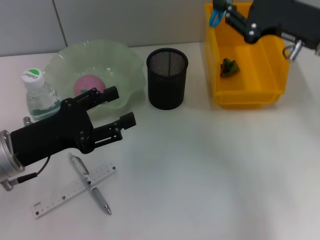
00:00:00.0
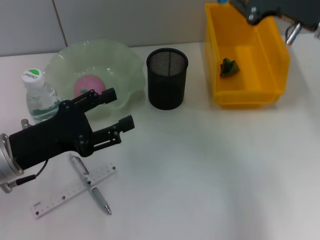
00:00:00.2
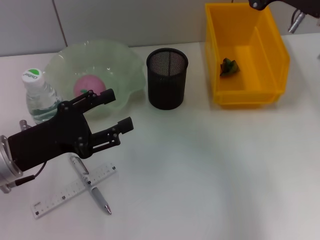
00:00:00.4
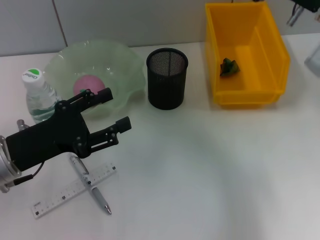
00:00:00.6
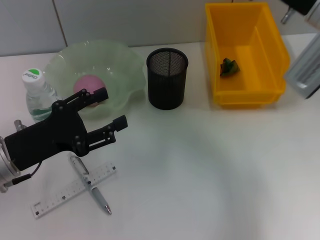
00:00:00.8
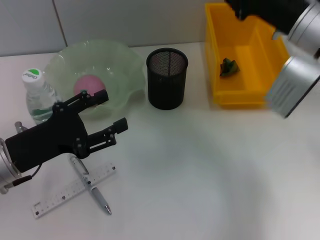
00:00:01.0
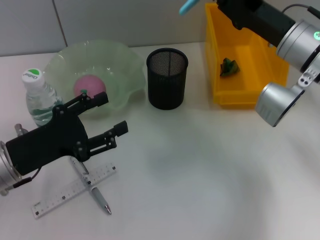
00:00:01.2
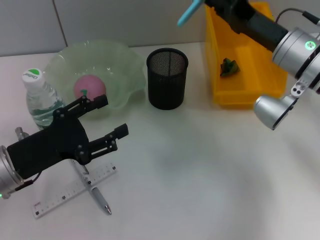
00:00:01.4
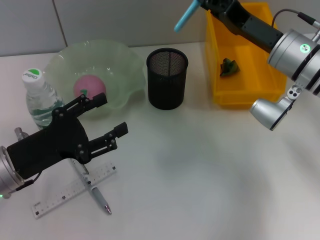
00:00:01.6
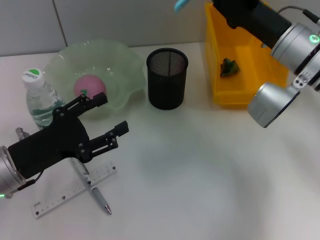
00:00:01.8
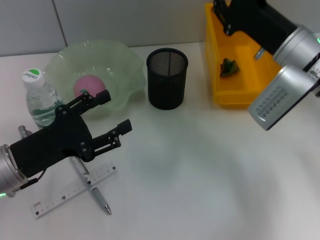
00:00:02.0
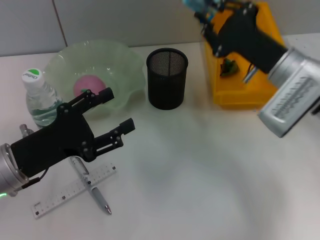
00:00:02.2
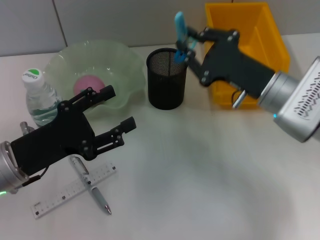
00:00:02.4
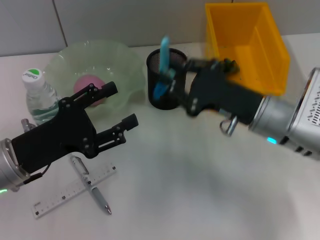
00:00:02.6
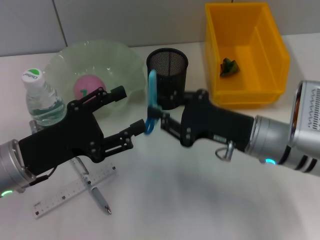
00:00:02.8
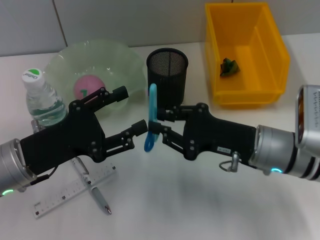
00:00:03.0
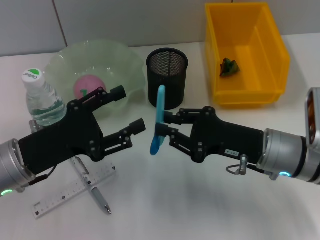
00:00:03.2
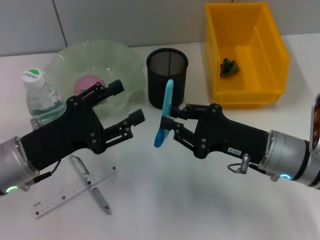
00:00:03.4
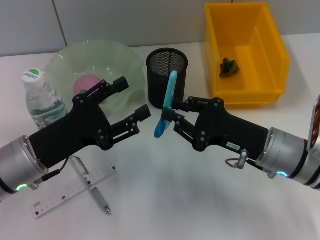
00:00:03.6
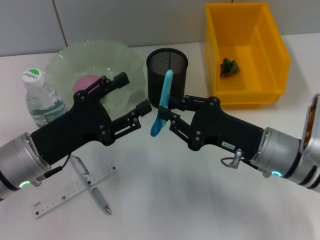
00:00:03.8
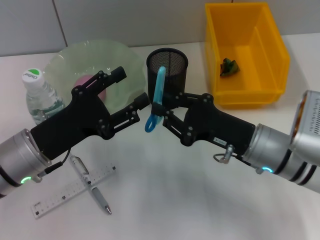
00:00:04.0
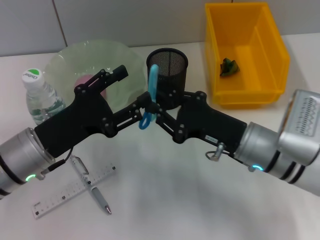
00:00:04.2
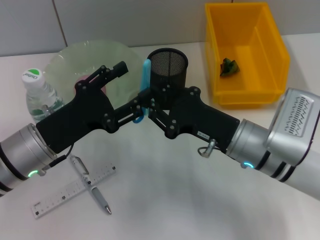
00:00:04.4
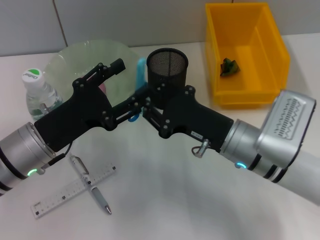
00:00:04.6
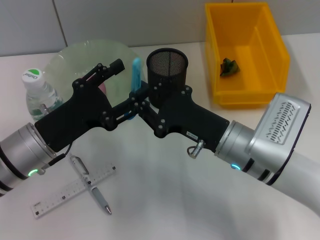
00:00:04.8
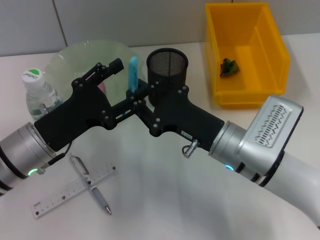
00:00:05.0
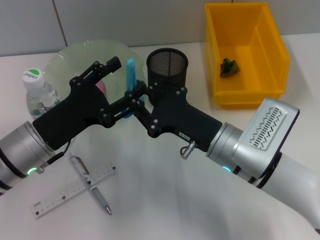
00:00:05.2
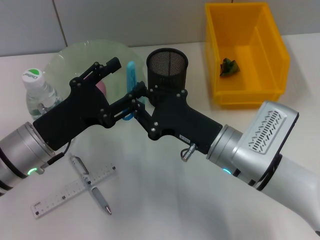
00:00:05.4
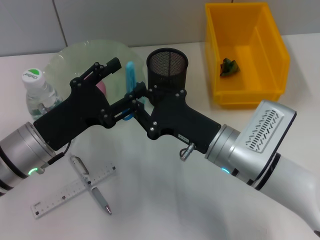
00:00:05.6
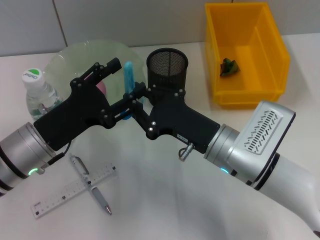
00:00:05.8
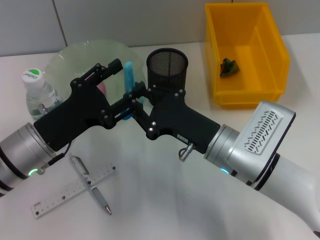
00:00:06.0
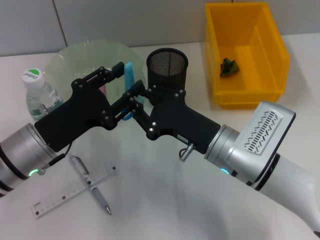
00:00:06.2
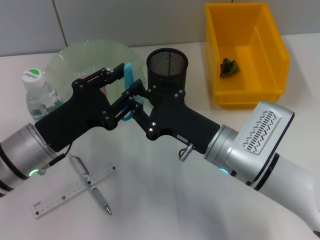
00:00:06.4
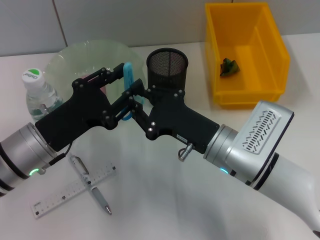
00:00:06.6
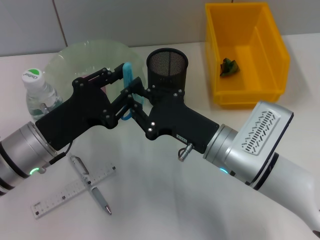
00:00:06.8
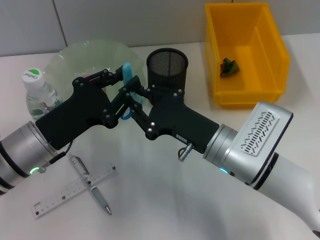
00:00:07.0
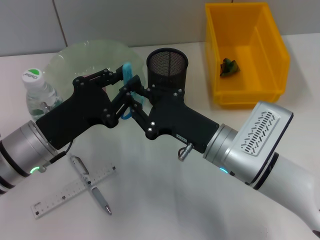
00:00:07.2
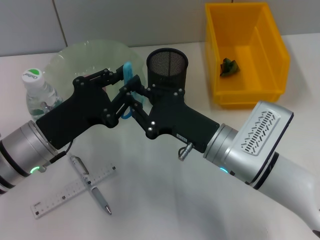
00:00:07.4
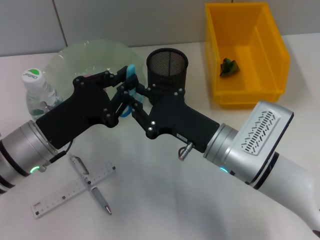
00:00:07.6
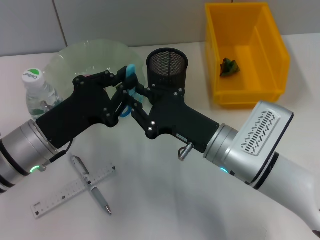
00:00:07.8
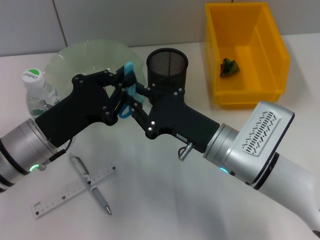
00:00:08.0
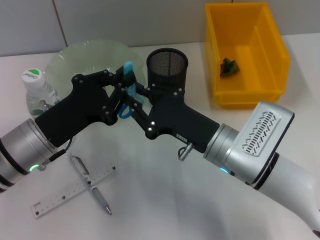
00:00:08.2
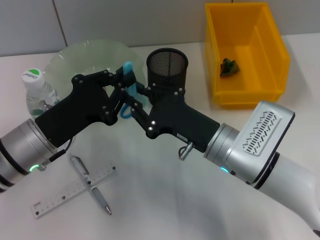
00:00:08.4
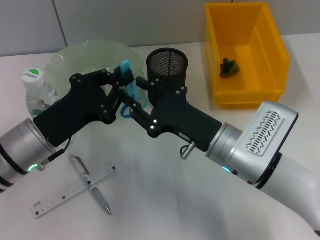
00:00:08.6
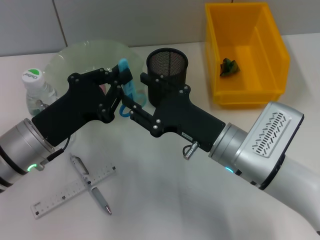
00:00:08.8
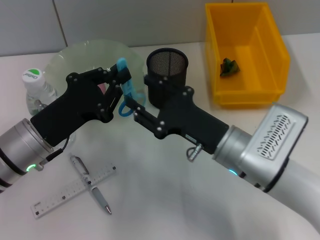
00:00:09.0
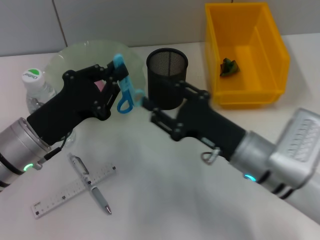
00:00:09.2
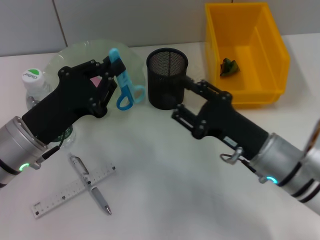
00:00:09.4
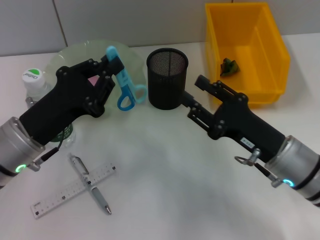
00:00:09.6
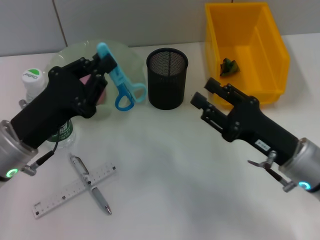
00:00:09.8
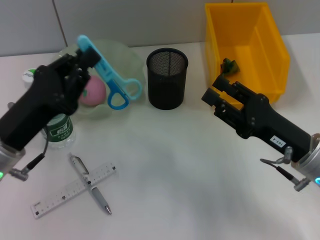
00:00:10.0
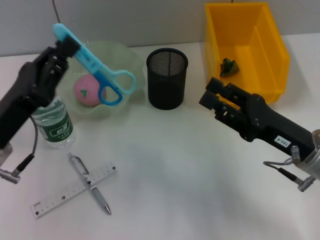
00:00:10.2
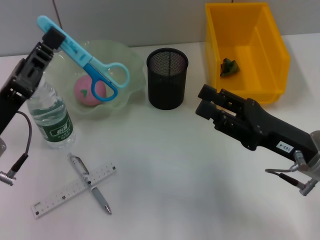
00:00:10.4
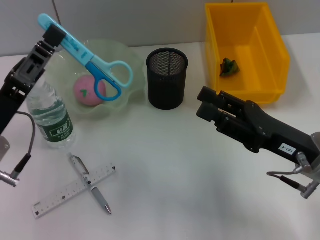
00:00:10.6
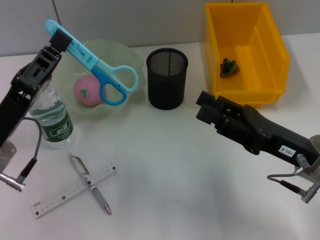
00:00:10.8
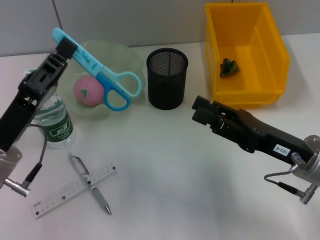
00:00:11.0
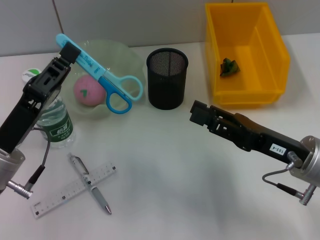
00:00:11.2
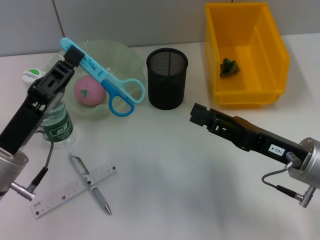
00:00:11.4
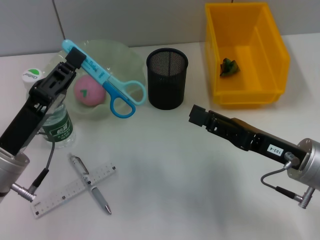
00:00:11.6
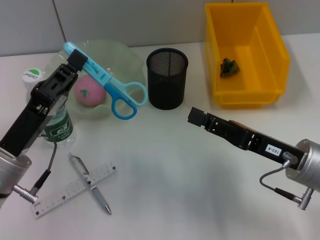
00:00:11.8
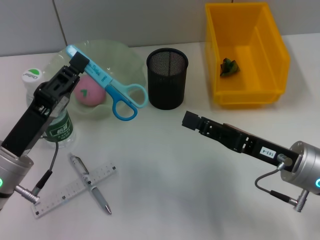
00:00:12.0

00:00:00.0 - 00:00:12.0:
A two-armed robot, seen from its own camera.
Step, 00:00:00.0 - 00:00:09.0: Pass the blue scissors from the right hand to the left hand.
00:00:00.0 - 00:00:01.6: The right gripper travels downward by roughly 5 cm.
00:00:01.6 - 00:00:03.0: The right gripper goes about 10 cm backward and downward.
00:00:04.4 - 00:00:06.0: The grippers stay close to where they were, moving slightly.
00:00:06.0 - 00:00:07.6: The left gripper closes up.
00:00:07.6 - 00:00:09.0: Neither gripper changes place.
00:00:09.0 - 00:00:10.4: The right gripper travels to the right by roughly 10 cm. Meanwhile the left gripper changes place by roughly 5 cm.

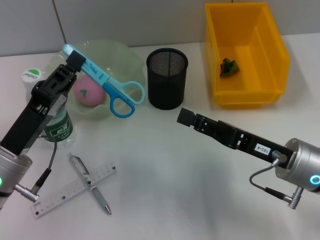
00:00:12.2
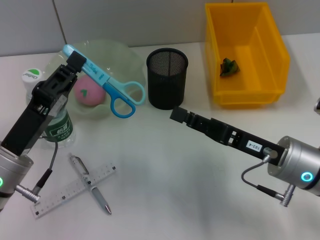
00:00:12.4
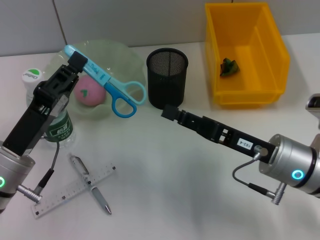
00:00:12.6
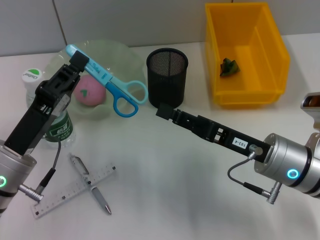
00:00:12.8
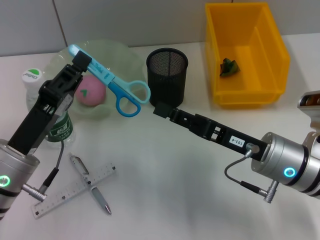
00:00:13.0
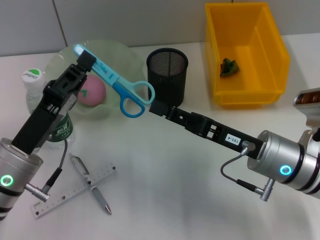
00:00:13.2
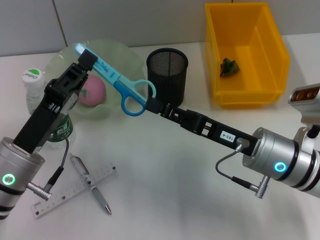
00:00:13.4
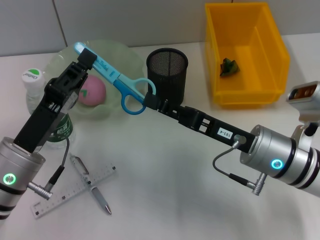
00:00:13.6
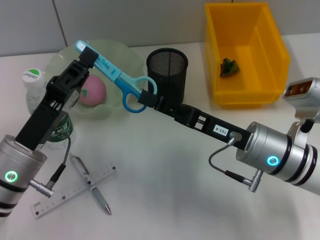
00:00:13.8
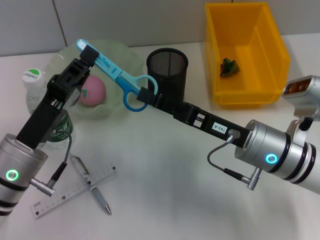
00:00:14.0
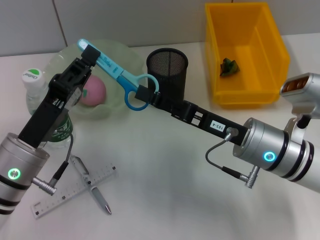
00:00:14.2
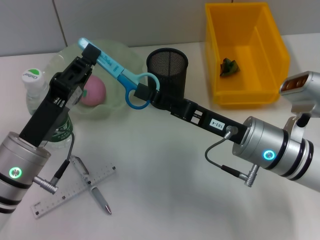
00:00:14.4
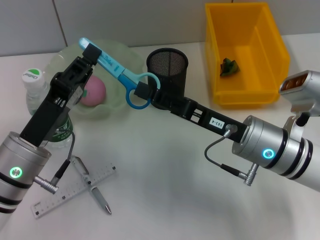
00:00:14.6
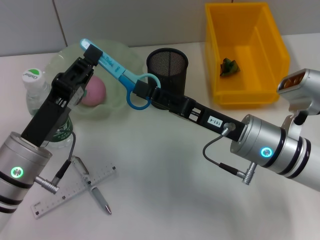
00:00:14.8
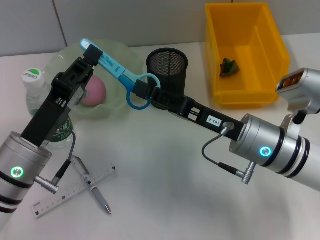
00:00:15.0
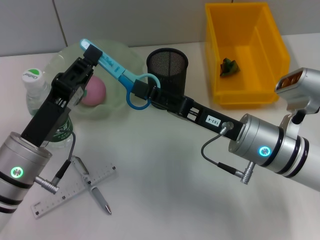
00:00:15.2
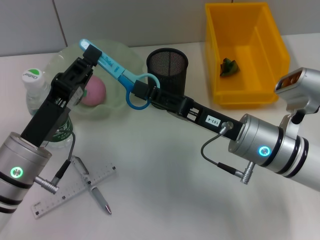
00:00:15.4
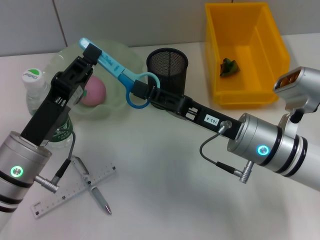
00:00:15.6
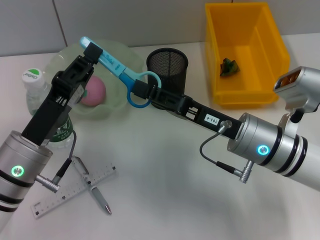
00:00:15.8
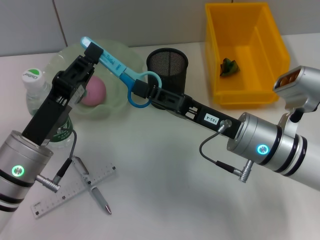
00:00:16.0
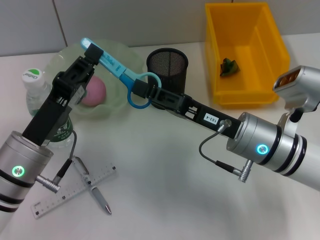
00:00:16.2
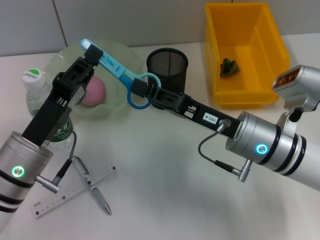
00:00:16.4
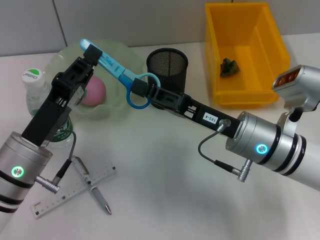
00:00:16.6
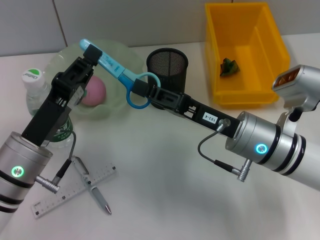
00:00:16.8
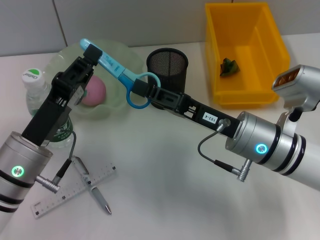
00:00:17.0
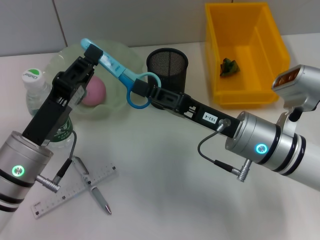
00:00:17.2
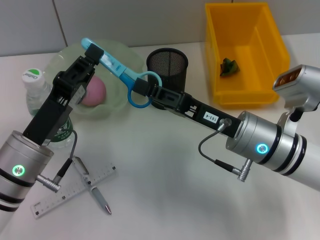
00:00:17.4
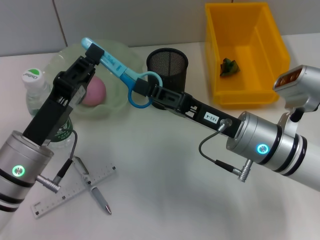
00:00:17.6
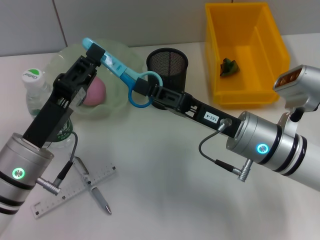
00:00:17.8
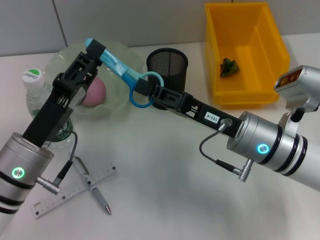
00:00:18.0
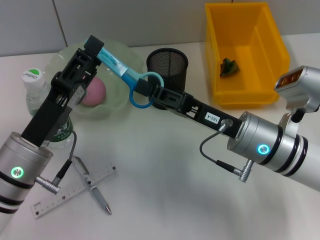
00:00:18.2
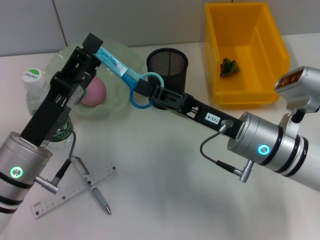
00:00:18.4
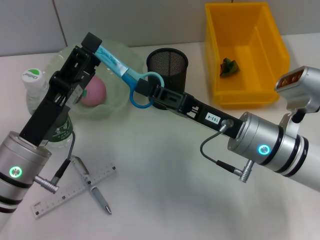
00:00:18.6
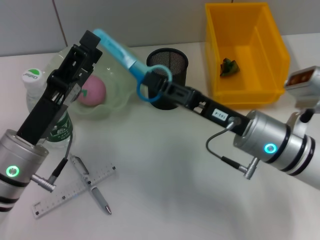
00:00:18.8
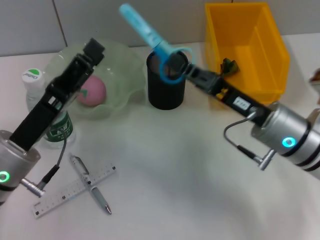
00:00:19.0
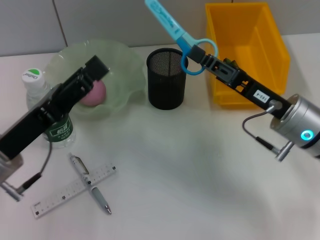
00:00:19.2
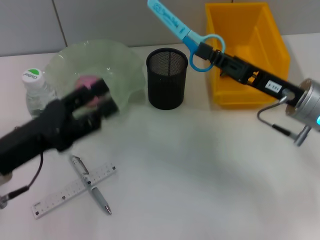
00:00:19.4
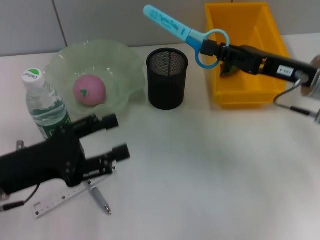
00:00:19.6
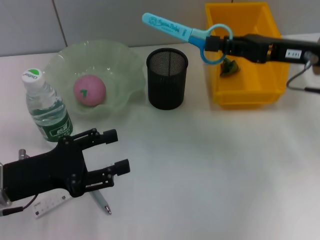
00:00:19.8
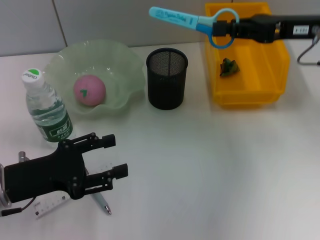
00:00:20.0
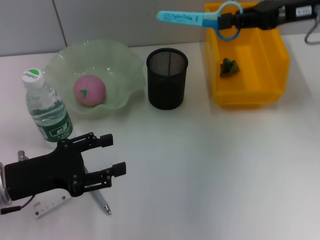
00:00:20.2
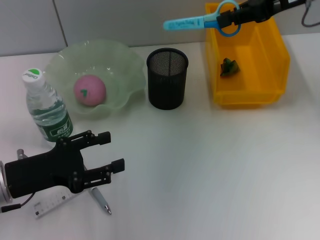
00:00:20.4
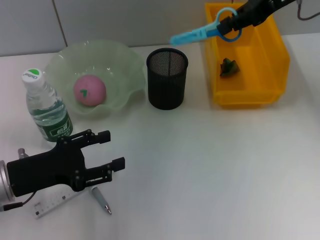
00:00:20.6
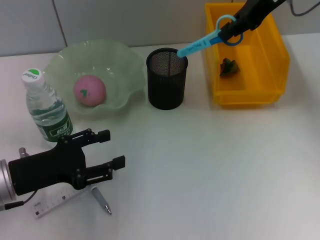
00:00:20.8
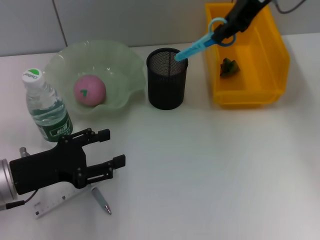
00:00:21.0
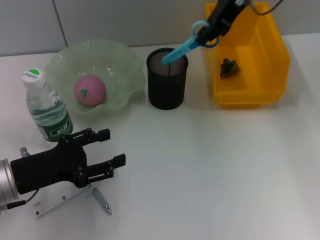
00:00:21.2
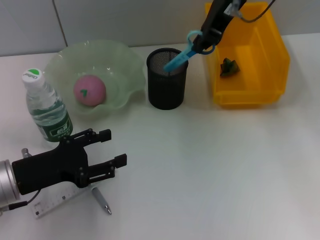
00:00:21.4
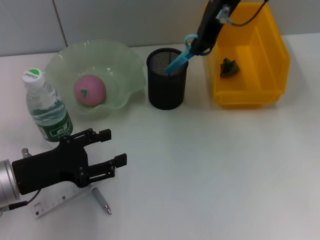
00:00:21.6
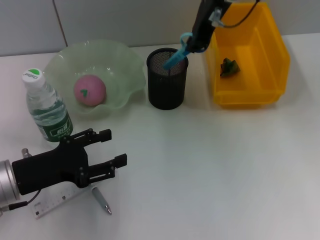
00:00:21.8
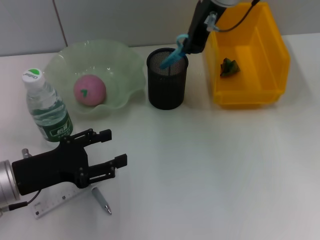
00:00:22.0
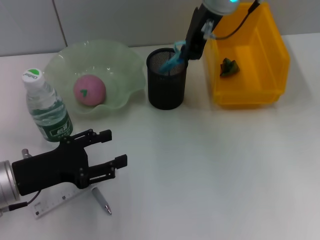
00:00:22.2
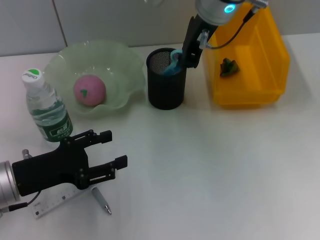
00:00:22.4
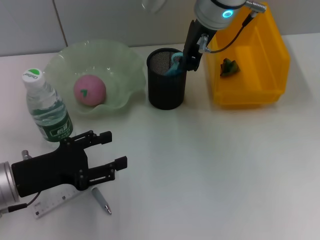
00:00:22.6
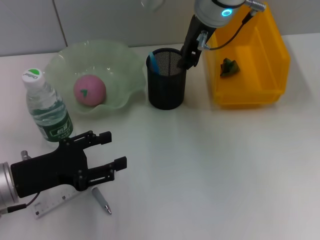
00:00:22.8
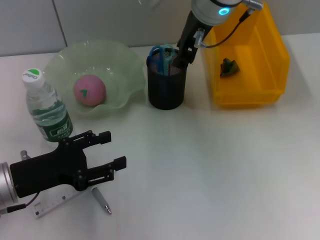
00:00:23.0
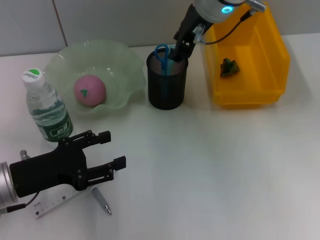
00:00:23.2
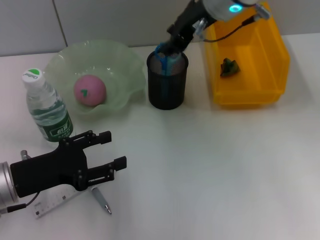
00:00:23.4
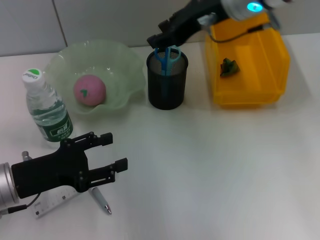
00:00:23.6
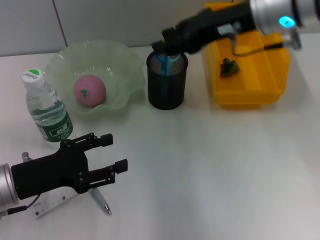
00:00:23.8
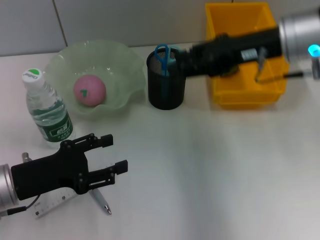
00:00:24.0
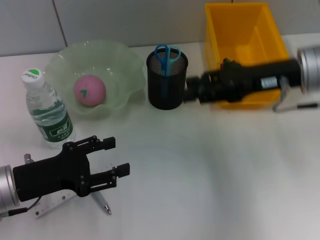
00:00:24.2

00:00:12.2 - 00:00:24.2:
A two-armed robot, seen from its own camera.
Step, 00:00:12.2 - 00:00:18.6: Pass the blue scissors from the left hand to the right hand.
Step, 00:00:19.0 - 00:00:23.0: Place the blue scissors into the pen holder with the right hand.
00:00:12.2 - 00:00:13.8: The right gripper changes place by some 5 cm.
00:00:13.8 - 00:00:15.2: Both grippers stay put.
00:00:15.2 - 00:00:16.6: The right gripper closes its fingers.
00:00:16.6 - 00:00:18.2: The two grippers keep their place.
00:00:18.2 - 00:00:19.8: The left gripper heads to the left, covering roughly 5 cm, and opens up, while the right gripper heads to the right, upward and forward, covering roughly 15 cm.
00:00:19.8 - 00:00:21.2: The right gripper heads upward, forward and to the left, covering roughly 20 cm.
00:00:21.2 - 00:00:22.6: The right gripper goes about 10 cm to the left.
00:00:22.6 - 00:00:24.2: The right gripper travels to the right, backward and downward by roughly 20 cm, and opens its fingers.
